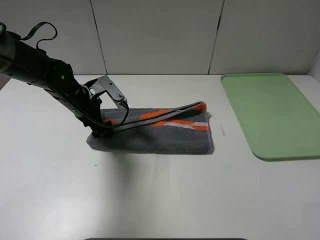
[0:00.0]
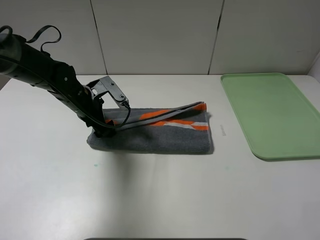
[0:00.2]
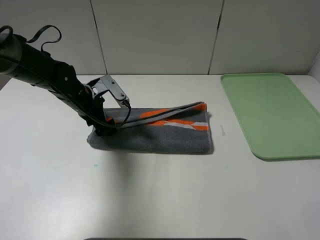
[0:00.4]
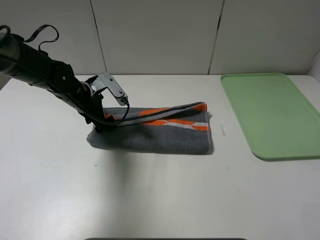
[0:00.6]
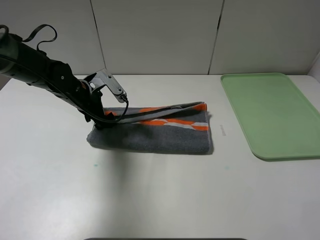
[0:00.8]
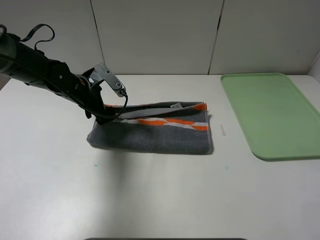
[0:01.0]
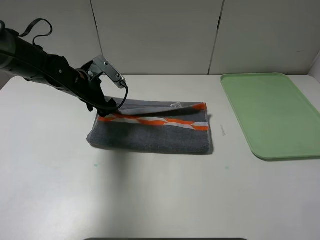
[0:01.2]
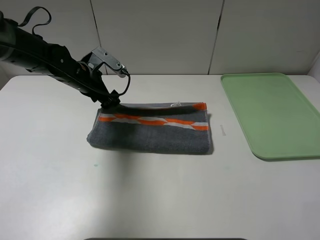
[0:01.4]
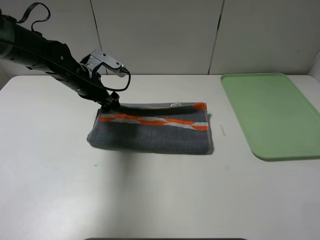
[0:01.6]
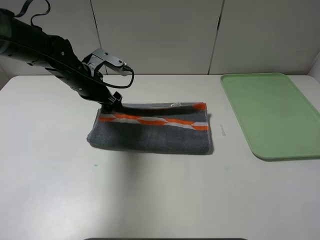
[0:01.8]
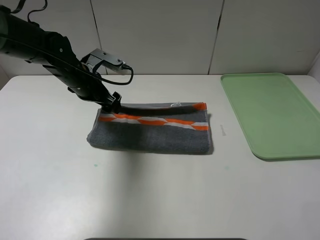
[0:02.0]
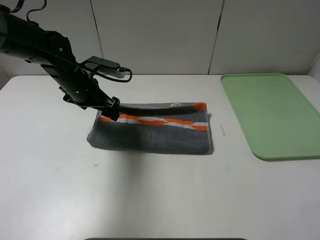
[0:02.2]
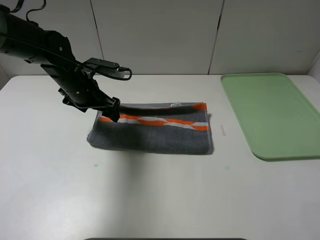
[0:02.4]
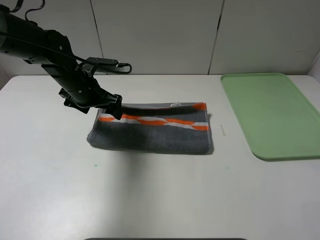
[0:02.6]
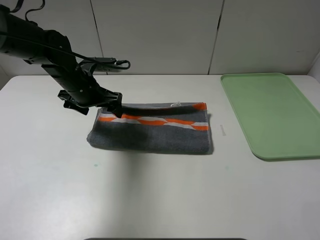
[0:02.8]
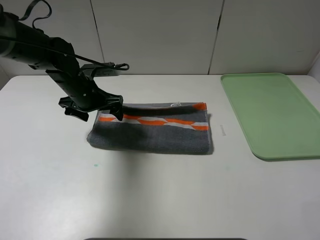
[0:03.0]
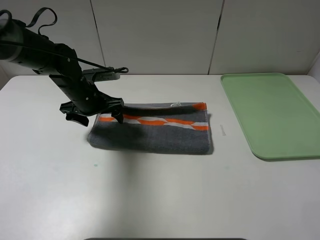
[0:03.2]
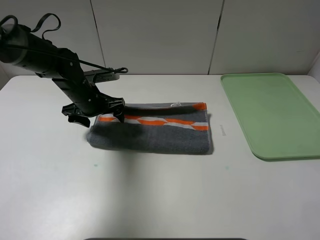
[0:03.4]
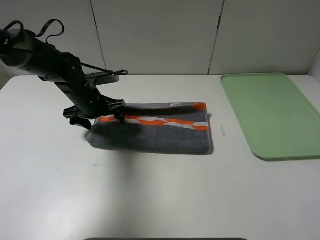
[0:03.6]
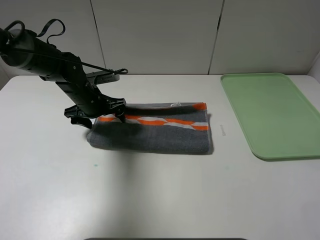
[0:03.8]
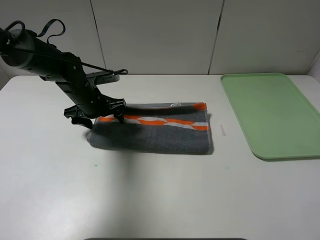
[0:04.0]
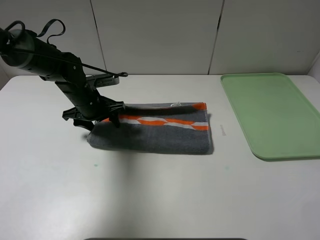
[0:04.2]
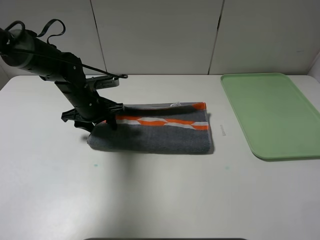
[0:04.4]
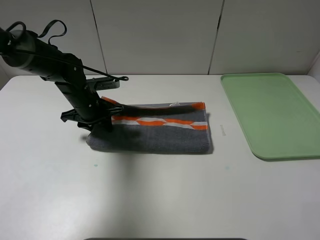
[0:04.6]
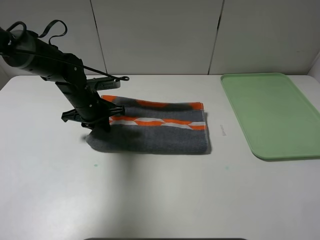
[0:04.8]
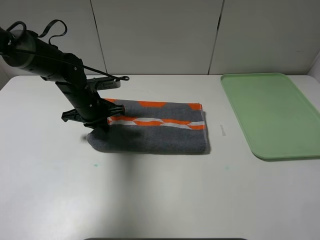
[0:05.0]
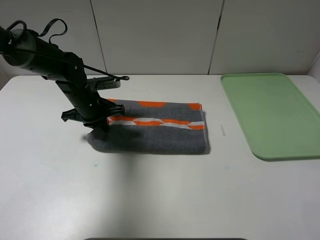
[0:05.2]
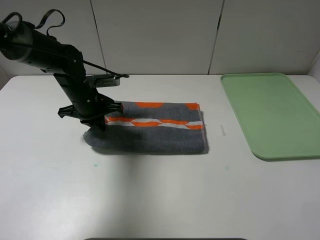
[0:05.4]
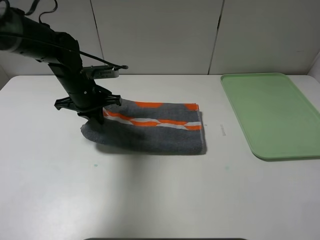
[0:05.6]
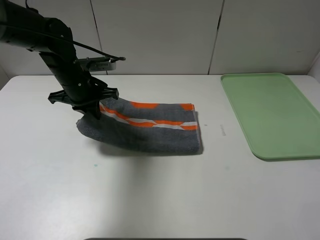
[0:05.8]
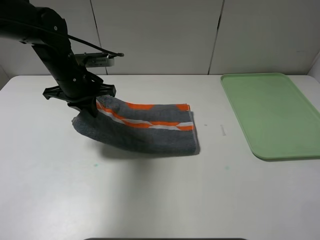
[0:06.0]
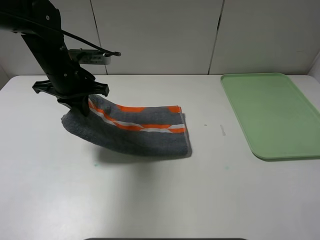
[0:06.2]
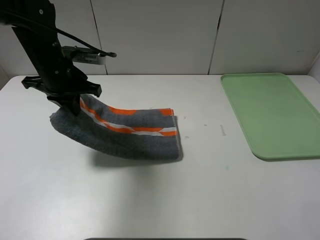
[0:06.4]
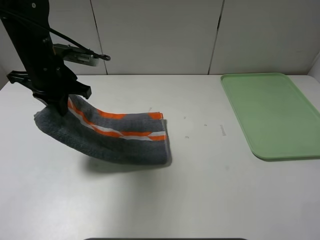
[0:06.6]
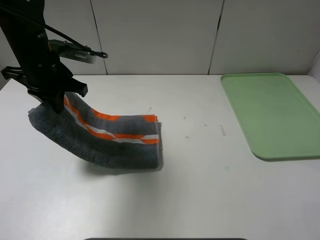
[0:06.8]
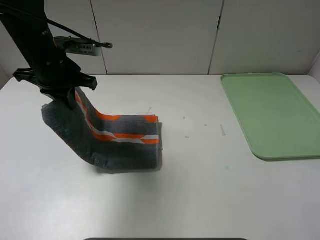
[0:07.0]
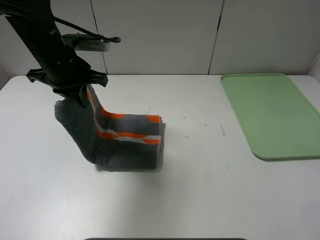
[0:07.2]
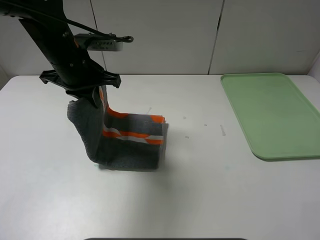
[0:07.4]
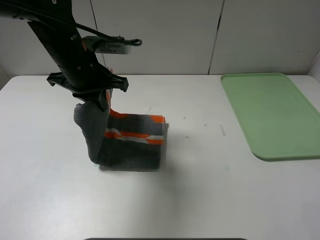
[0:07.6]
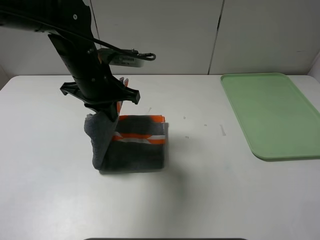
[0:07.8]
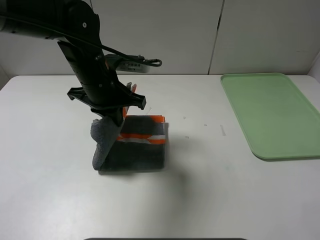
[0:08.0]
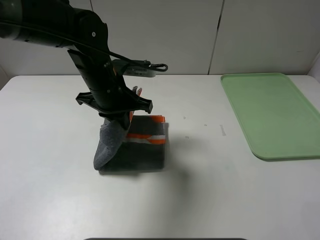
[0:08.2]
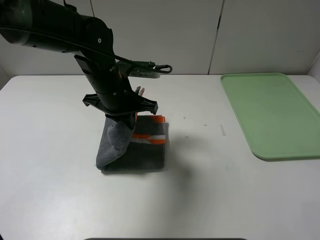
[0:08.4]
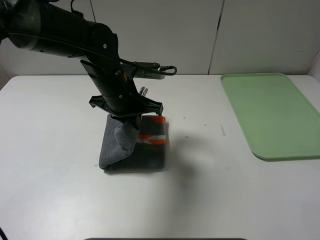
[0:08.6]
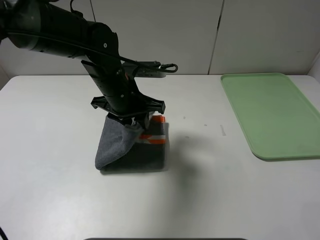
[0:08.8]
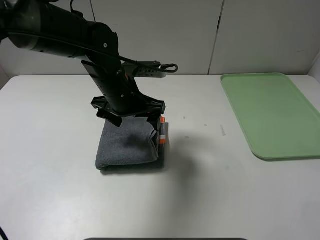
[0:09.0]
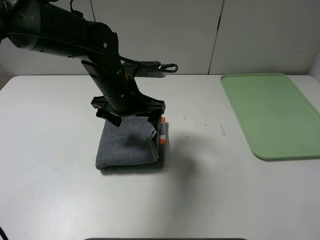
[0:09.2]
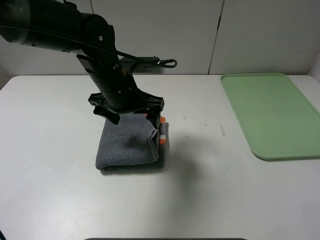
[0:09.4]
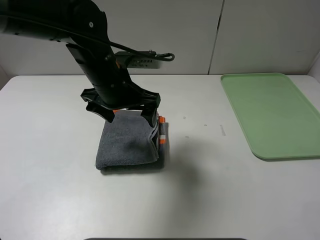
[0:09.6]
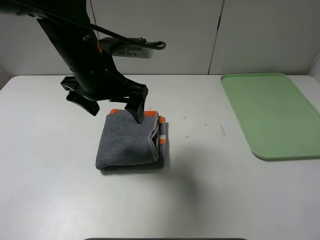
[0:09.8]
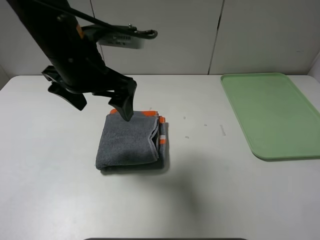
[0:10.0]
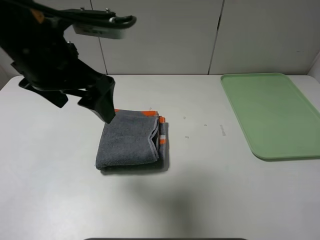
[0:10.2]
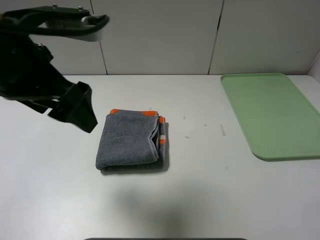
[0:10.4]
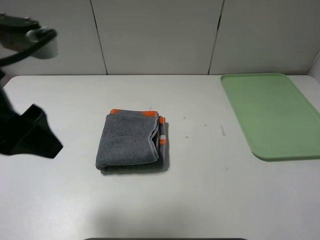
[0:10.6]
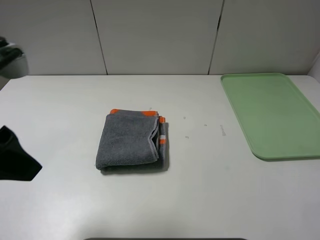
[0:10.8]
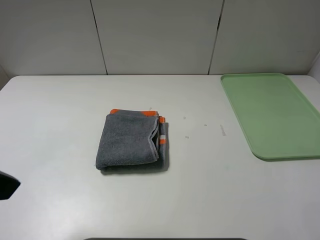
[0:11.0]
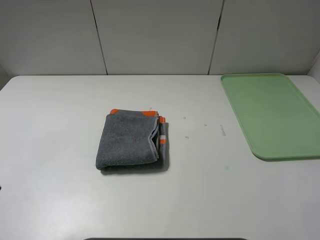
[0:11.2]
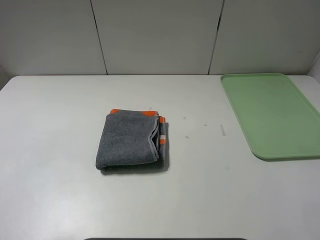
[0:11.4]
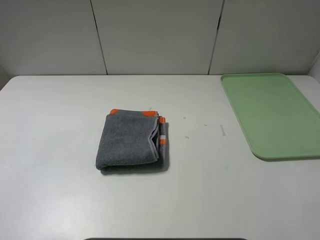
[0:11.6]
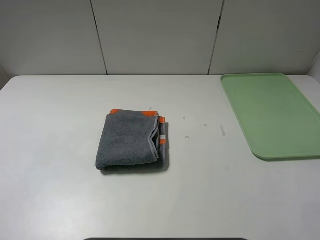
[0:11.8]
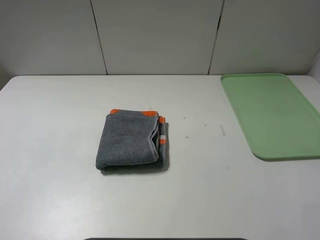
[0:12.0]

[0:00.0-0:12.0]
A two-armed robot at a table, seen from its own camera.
Step, 0:00.0 to 0:09.2: Fold the grey towel from left to right with left gripper.
0:00.0 to 0:01.6: The left gripper ends up about 5 cm from where it was.
0:03.0 to 0:04.4: The left gripper closes up.
0:04.4 to 0:06.0: The left gripper goes approximately 10 cm upward, and closes.
0:06.0 to 0:07.6: The left gripper changes place by some 10 cm.
0:07.6 to 0:09.0: The left gripper travels to the right and downward by some 10 cm, and opens up.
0:09.0 to 0:10.4: The left gripper travels upward, backward and to the left by some 20 cm.
0:10.4 to 0:12.0: The left gripper moves backward and to the left, about 20 cm.

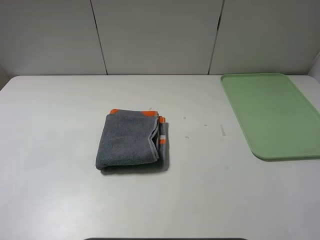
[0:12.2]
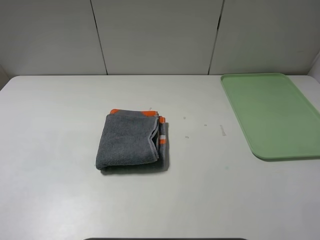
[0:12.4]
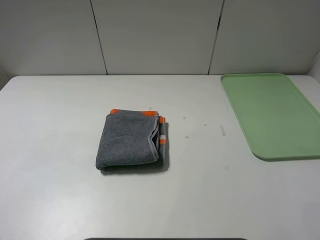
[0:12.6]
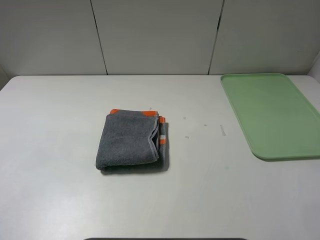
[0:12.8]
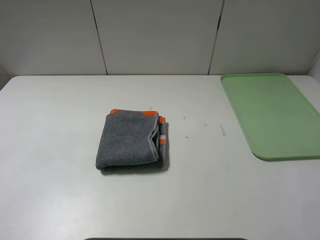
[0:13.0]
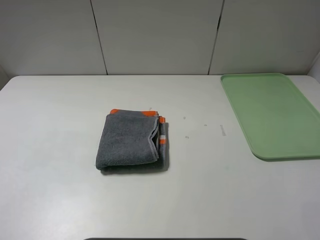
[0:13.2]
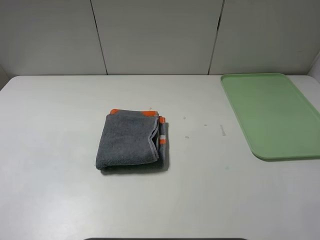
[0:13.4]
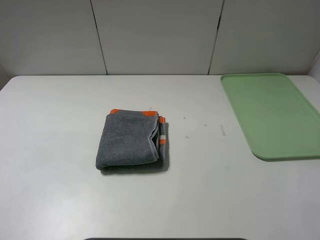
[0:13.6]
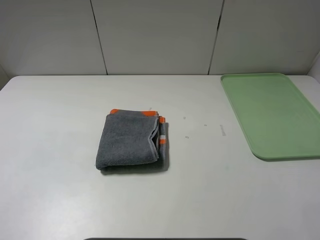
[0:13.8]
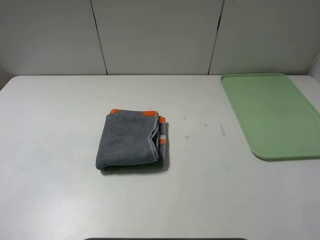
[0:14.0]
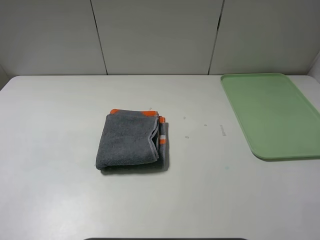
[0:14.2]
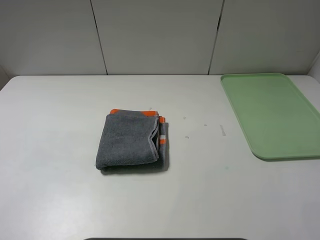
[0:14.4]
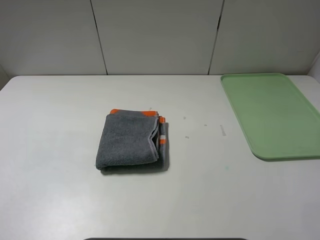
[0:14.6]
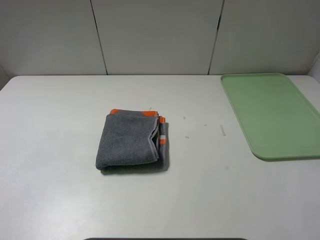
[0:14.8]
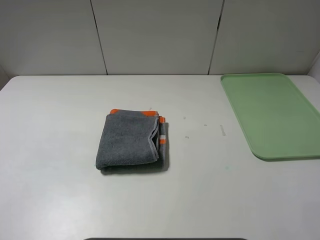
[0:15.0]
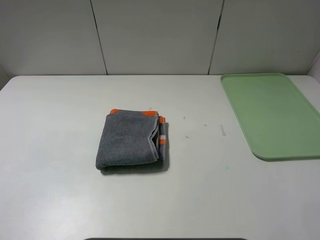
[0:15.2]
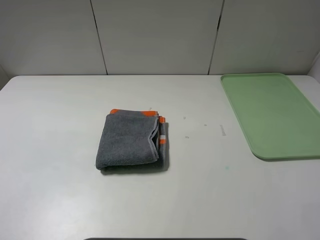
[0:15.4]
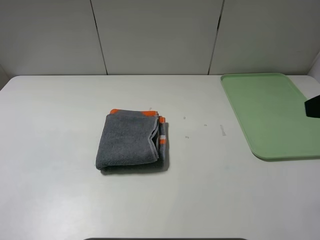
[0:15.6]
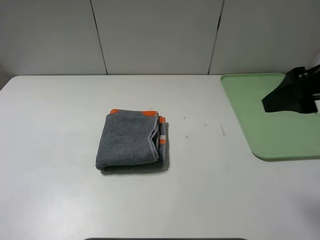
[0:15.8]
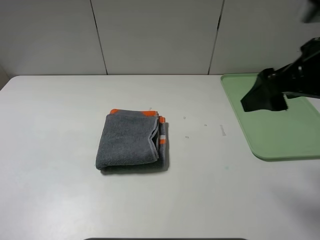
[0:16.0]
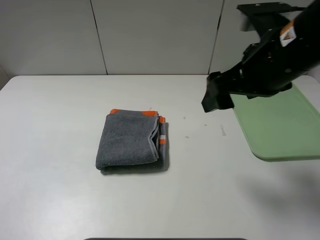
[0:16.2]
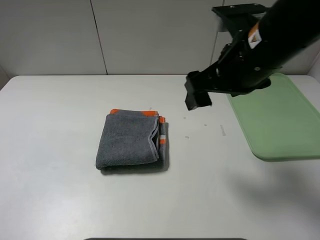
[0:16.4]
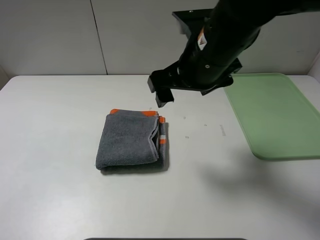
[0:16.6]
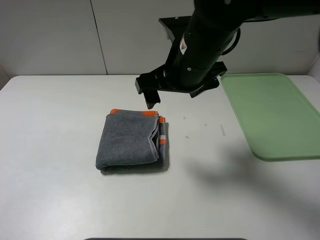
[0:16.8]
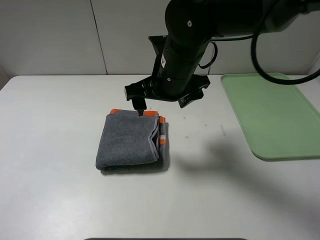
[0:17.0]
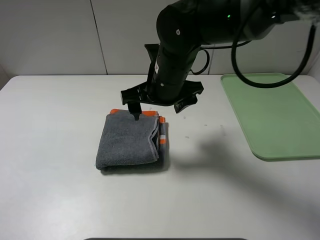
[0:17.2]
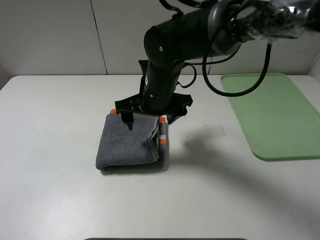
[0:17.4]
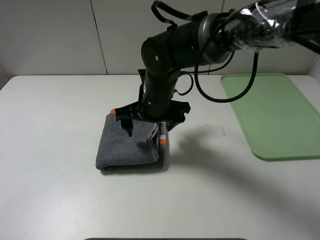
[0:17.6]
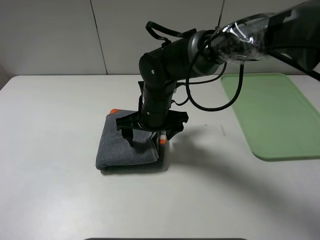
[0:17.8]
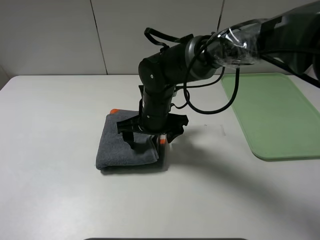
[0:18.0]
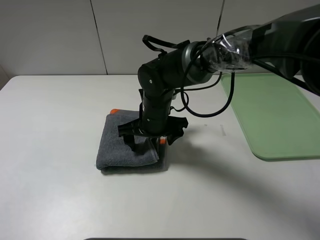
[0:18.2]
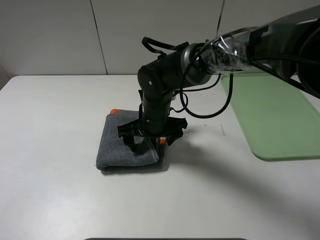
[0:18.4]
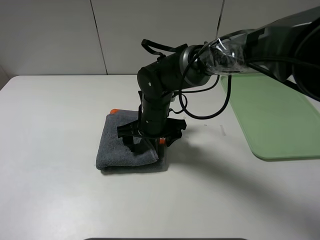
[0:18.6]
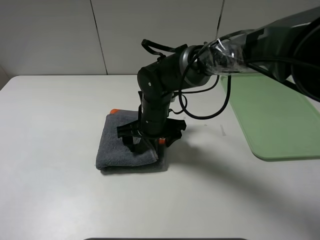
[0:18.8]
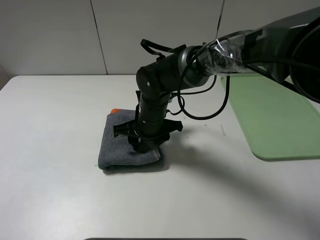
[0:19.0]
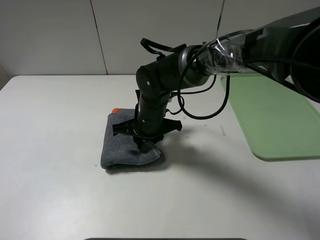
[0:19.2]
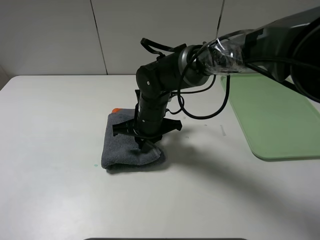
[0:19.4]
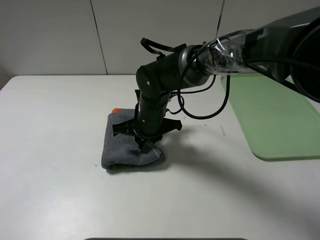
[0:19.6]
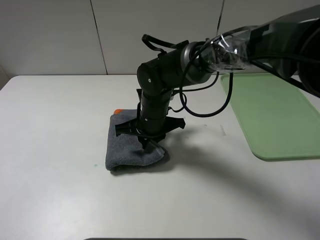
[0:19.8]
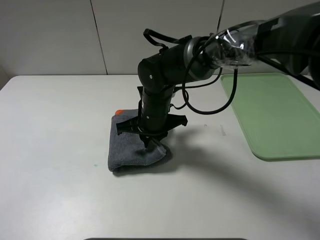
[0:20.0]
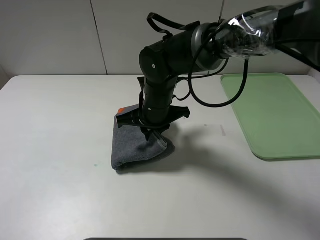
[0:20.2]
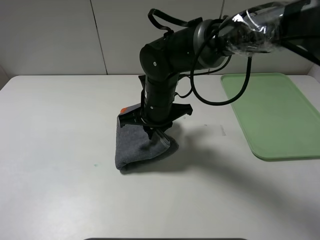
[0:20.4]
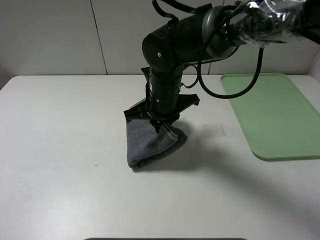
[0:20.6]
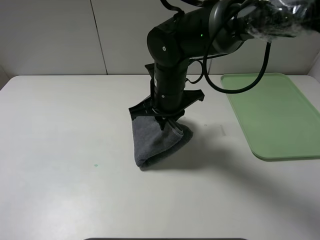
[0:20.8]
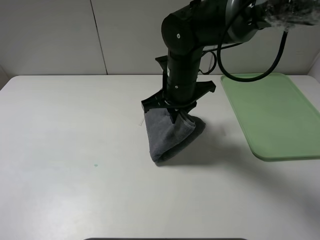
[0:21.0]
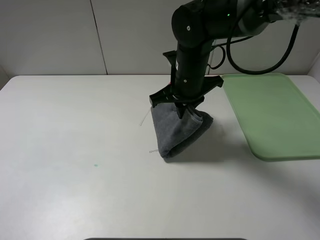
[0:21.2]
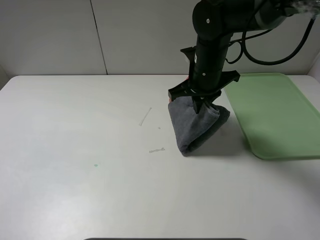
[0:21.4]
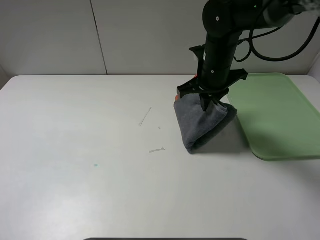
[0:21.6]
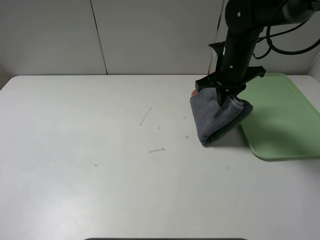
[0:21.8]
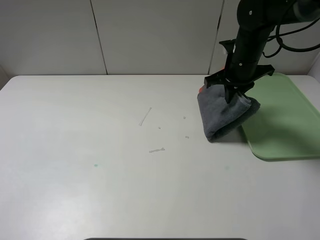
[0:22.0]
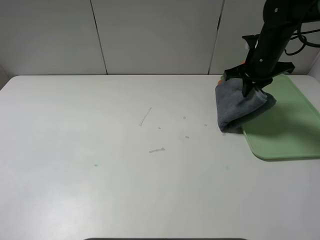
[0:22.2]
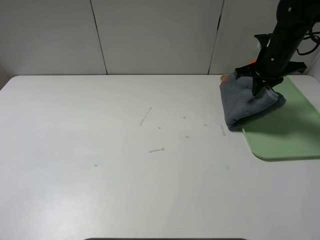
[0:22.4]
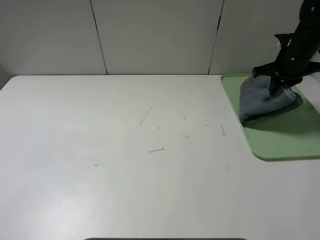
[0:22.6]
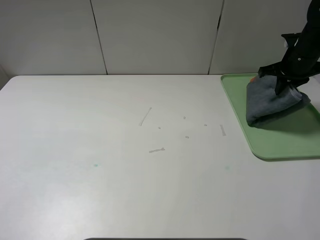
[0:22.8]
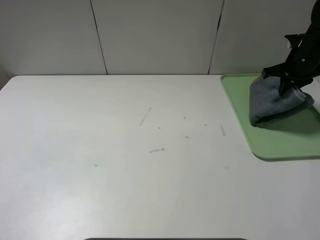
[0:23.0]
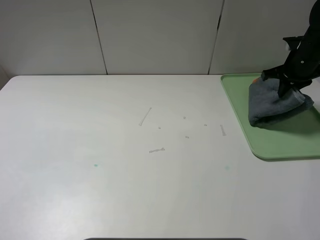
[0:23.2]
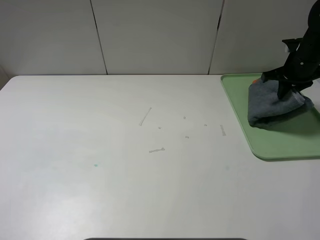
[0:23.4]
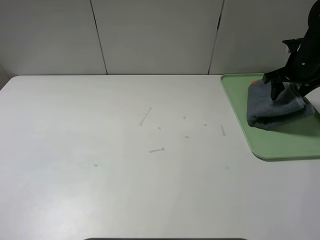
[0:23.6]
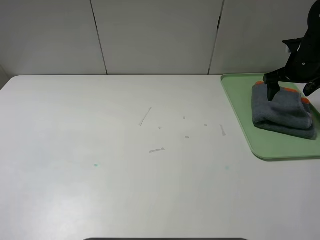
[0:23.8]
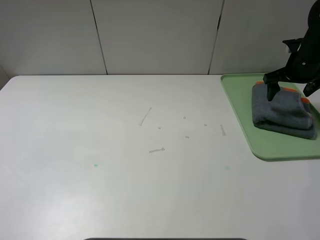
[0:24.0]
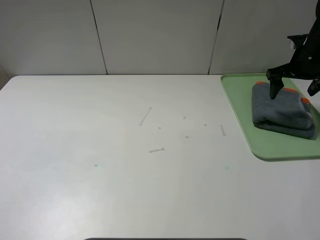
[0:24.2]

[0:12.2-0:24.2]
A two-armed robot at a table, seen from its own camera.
Step, 0:12.2 to 0:23.8: Place the folded grey towel on the tray with the right gripper.
0:12.2 to 0:13.8: Neither gripper changes place.
0:15.2 to 0:16.6: The right gripper goes about 30 cm to the left and forward.
0:16.6 to 0:18.2: The right gripper goes approximately 20 cm downward and to the left.
0:18.2 to 0:19.8: The right gripper closes.
0:19.8 to 0:21.2: The right gripper shifts about 10 cm upward and to the right.
0:21.2 to 0:22.6: The right gripper moves to the right, some 25 cm.
0:22.6 to 0:24.2: The right gripper opens its fingers.
